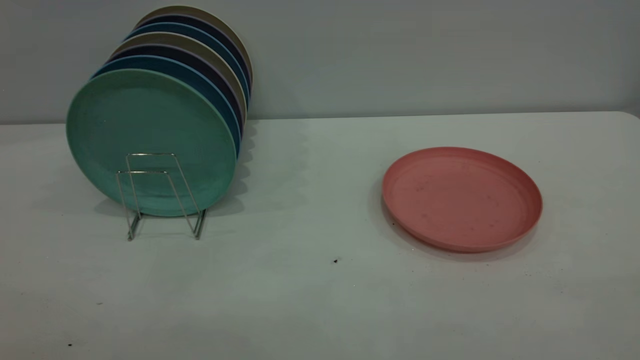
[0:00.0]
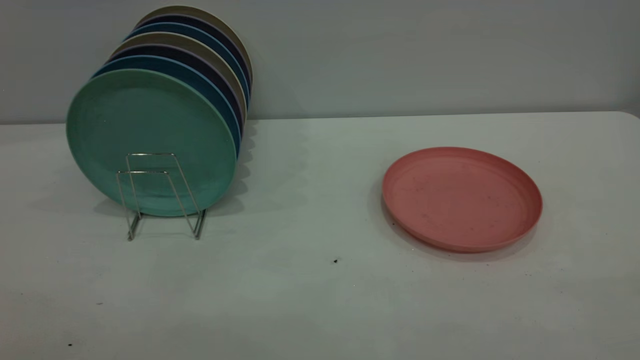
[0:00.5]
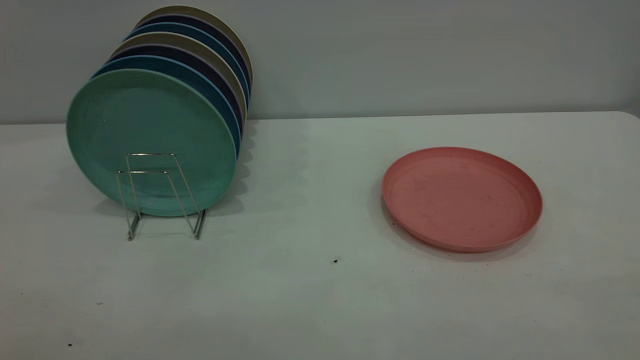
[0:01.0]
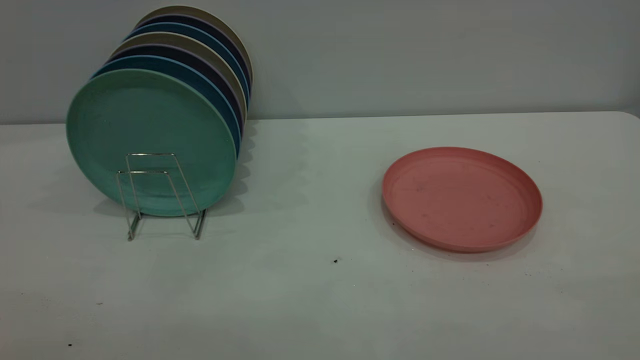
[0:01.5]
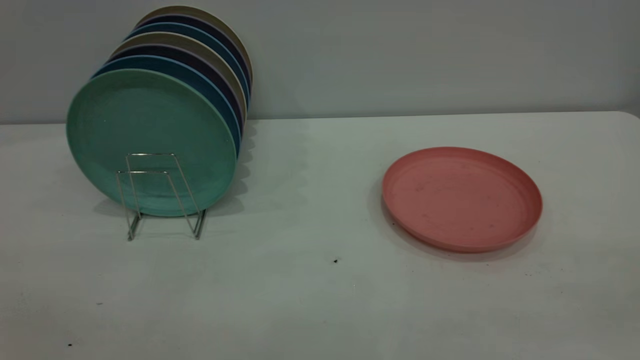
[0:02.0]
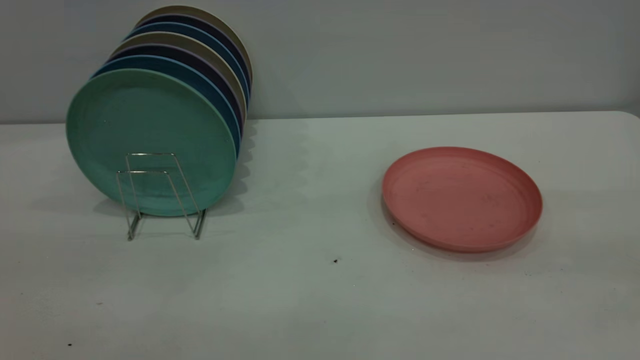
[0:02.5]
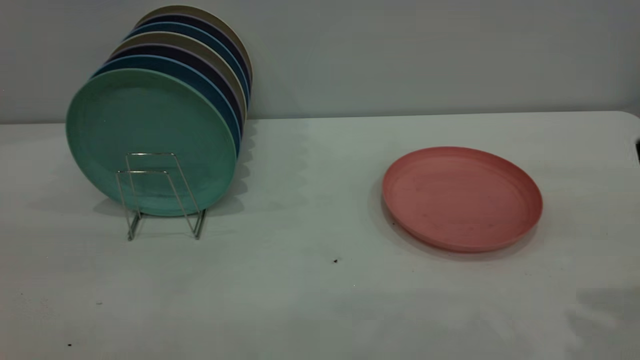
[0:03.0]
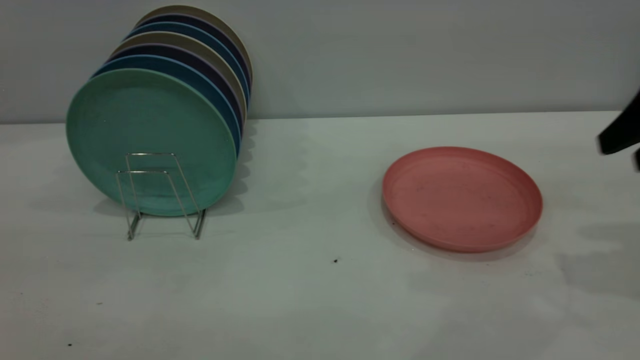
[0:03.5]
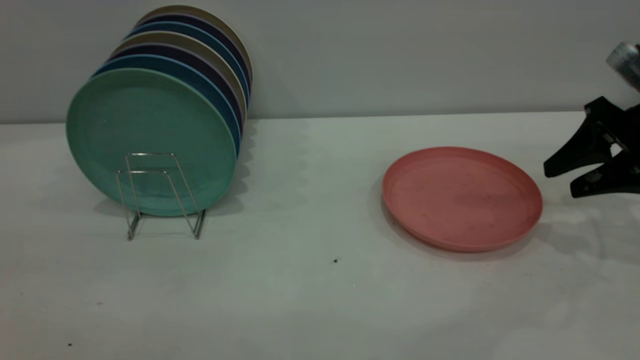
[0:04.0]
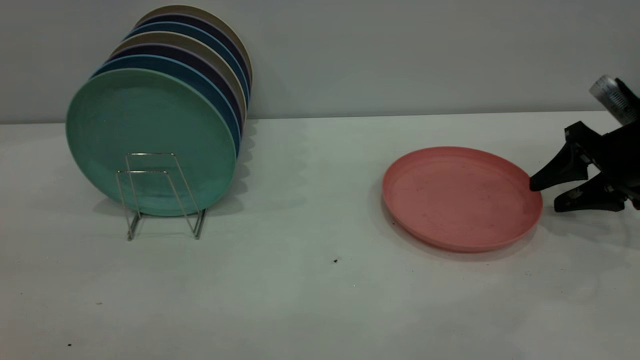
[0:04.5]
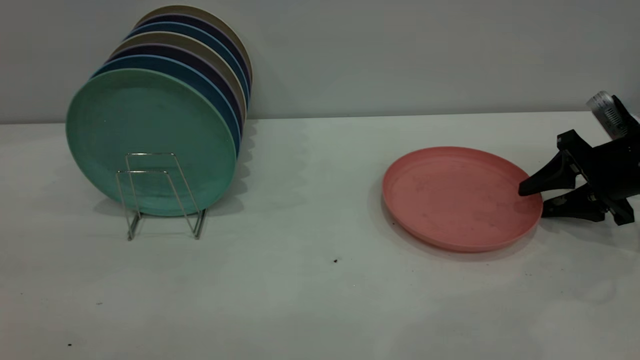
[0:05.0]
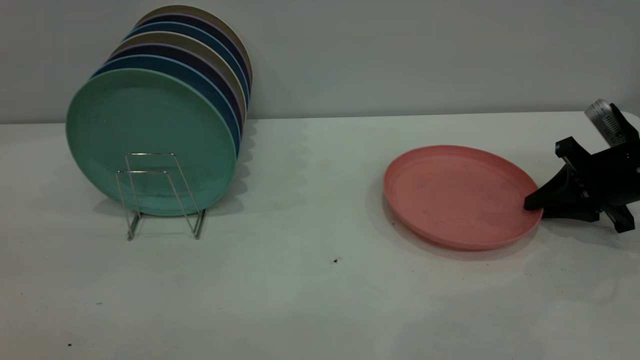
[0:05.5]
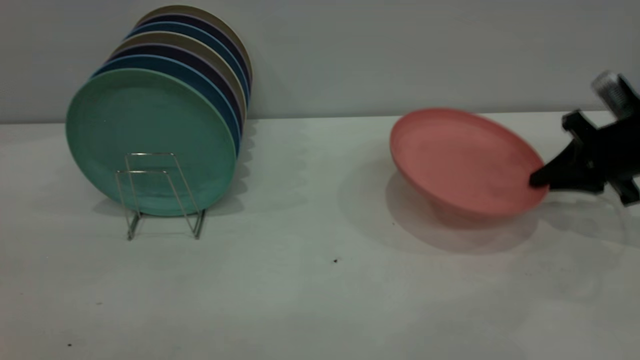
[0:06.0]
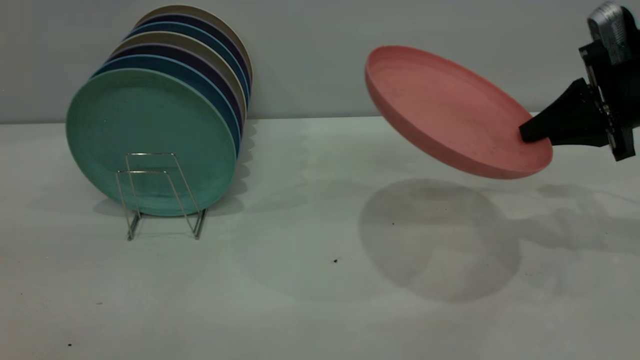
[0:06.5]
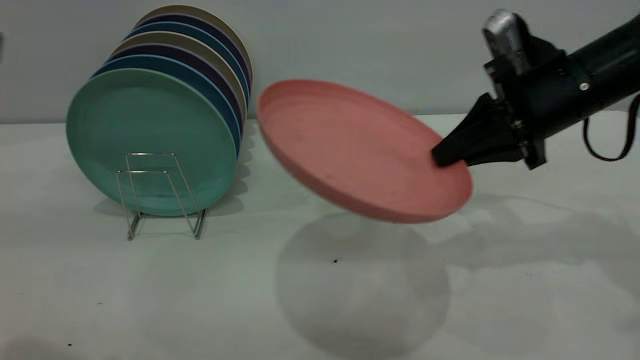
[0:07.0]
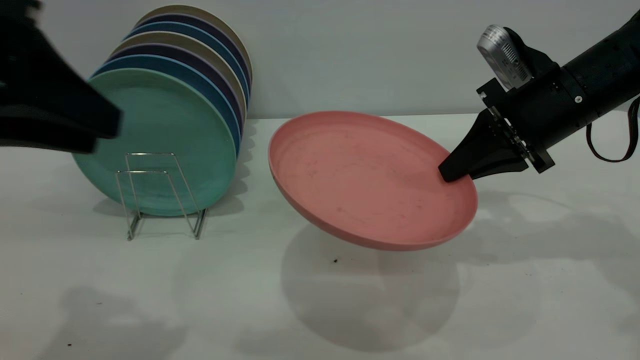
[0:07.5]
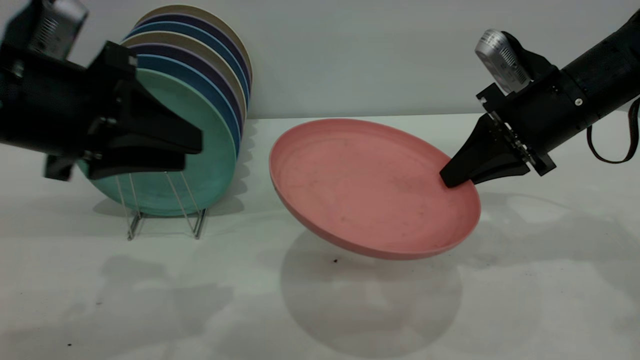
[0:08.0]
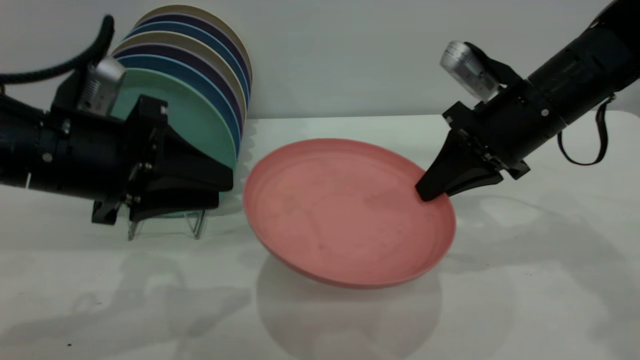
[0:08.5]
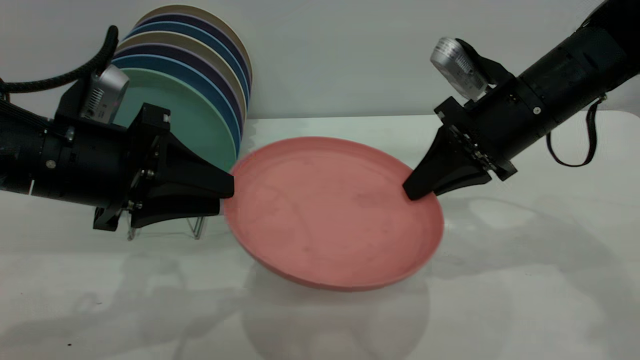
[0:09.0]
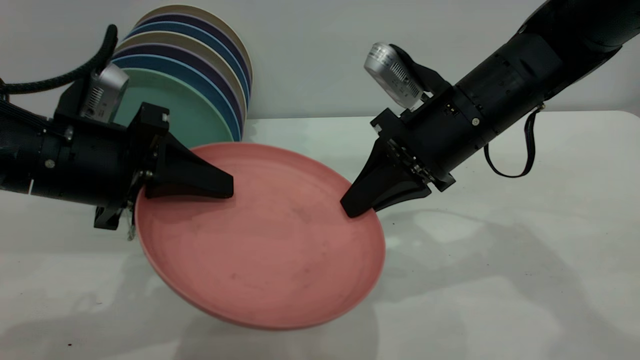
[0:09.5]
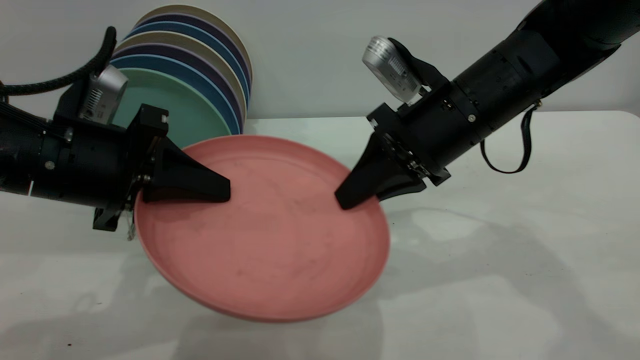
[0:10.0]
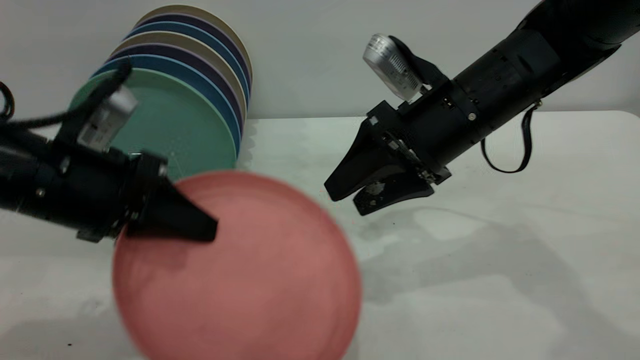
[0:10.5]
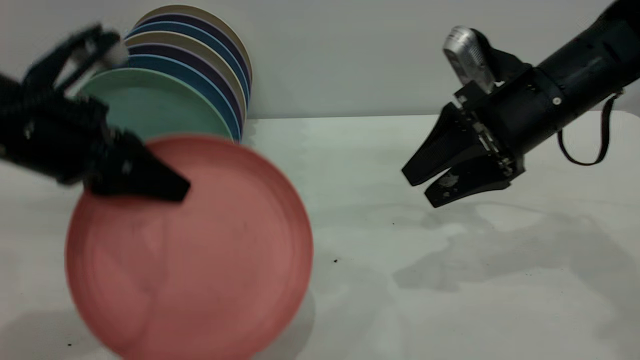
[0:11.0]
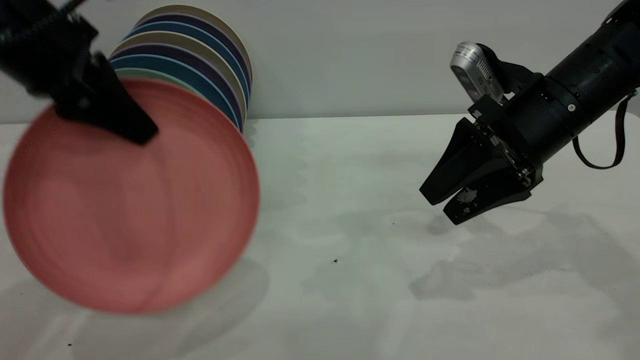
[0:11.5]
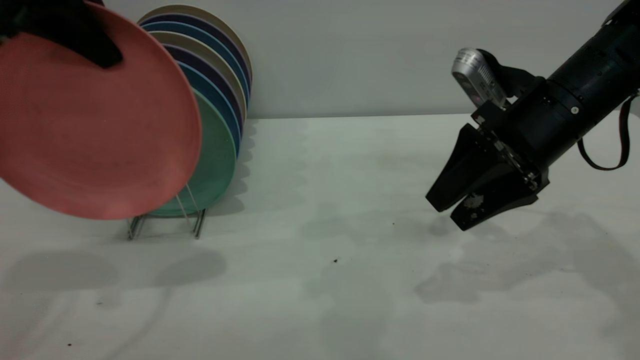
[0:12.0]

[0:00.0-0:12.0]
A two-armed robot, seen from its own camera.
Task of the whole recording: the right gripper grasp the pink plate, the right gripper pass the pink plate to the left gripper, and the left gripper place the pink plate on the plate rack.
Step, 0:00.0 to 0:06.0: Pick up the plate with the right gripper.
Step, 0:06.5 to 0:11.0: Pass the plate from the right gripper to the left gripper.
0:02.0 to 0:04.0: The right gripper travels forward and downward by some 40 cm.
0:04.0 to 0:06.0: The right gripper closes its fingers.
0:06.0 to 0:08.0: The right gripper travels to the left and upward by some 15 cm, while the left gripper travels downward and forward by roughly 25 cm.
0:08.0 to 0:10.0: The right gripper heads to the left, covering approximately 10 cm, while the left gripper goes about 5 cm downward, and closes its fingers.
0:10.0 to 0:12.0: The right gripper travels to the right by approximately 10 cm, and opens its fingers. Meanwhile the left gripper moves upward and forward, approximately 20 cm.

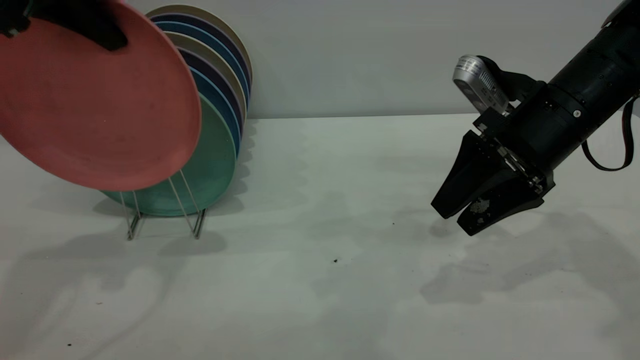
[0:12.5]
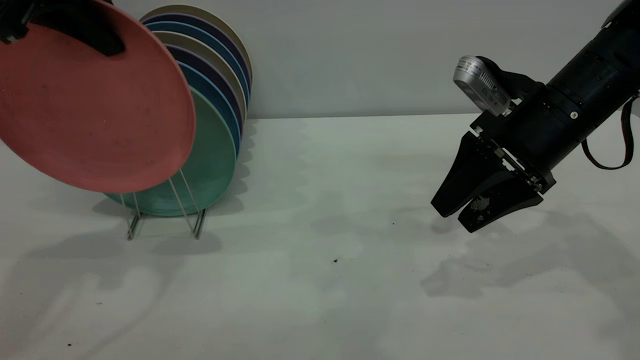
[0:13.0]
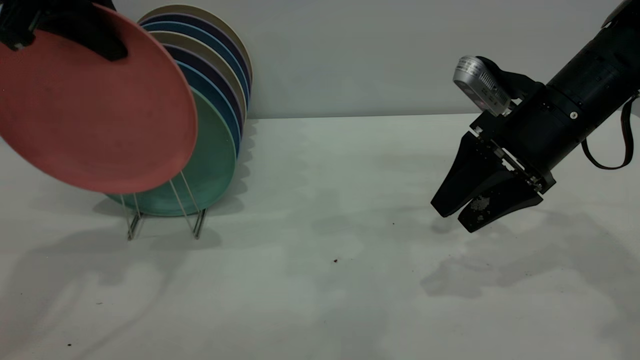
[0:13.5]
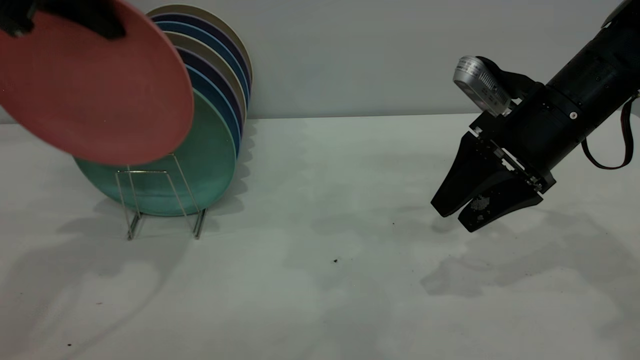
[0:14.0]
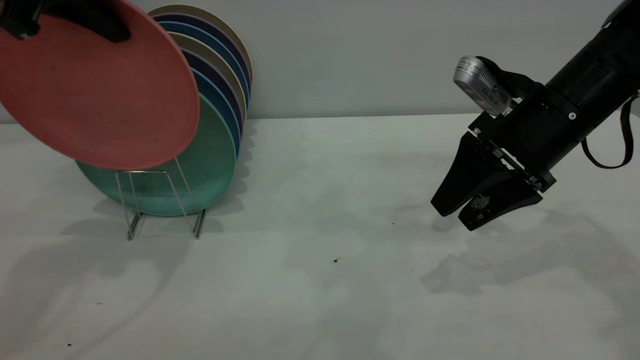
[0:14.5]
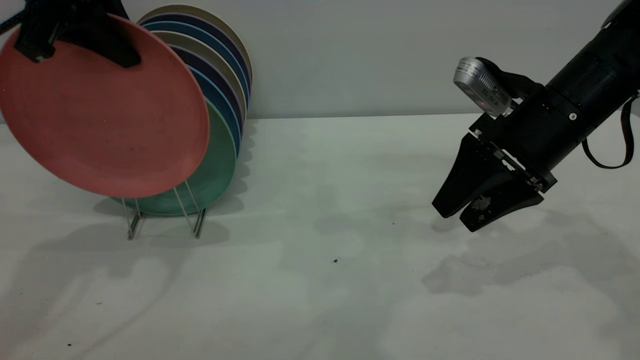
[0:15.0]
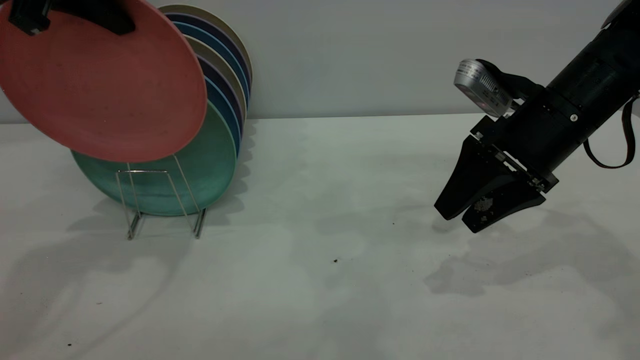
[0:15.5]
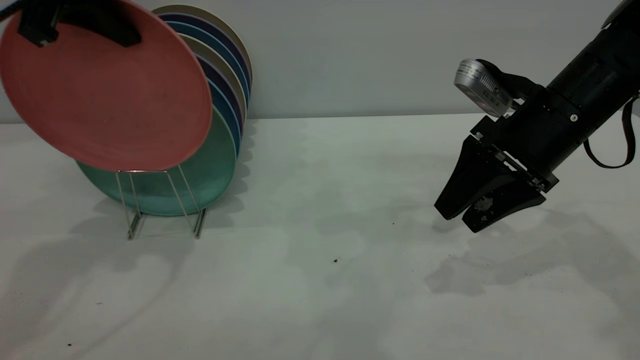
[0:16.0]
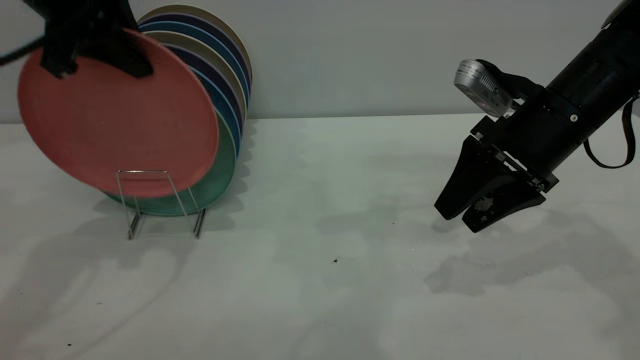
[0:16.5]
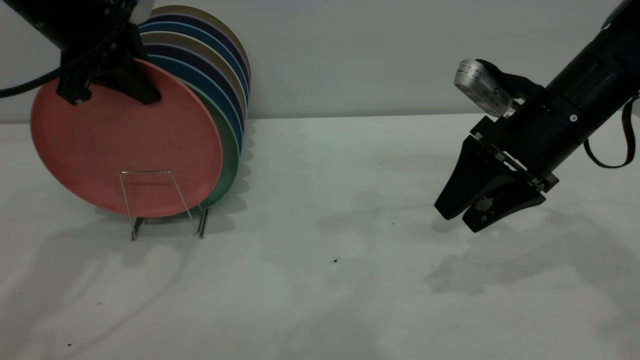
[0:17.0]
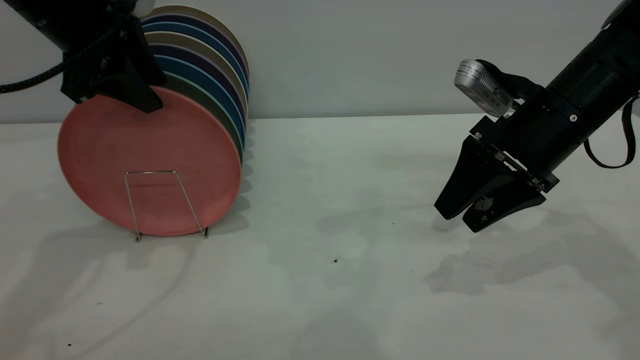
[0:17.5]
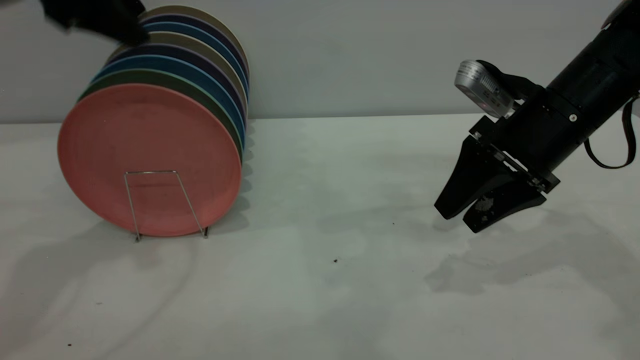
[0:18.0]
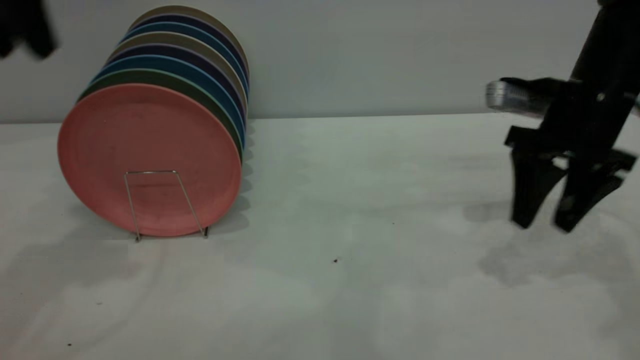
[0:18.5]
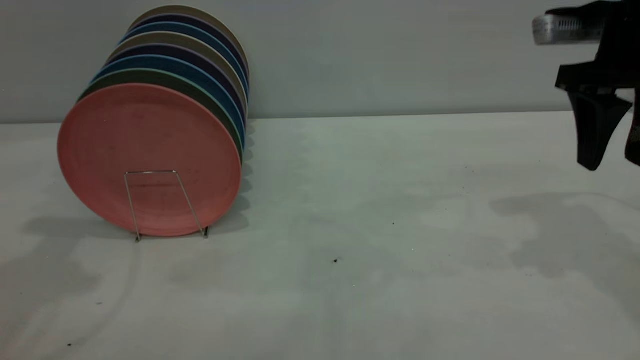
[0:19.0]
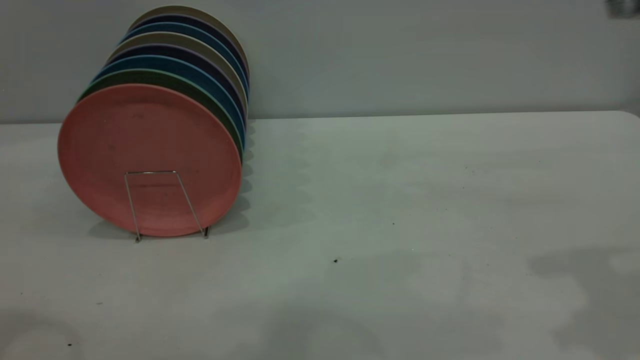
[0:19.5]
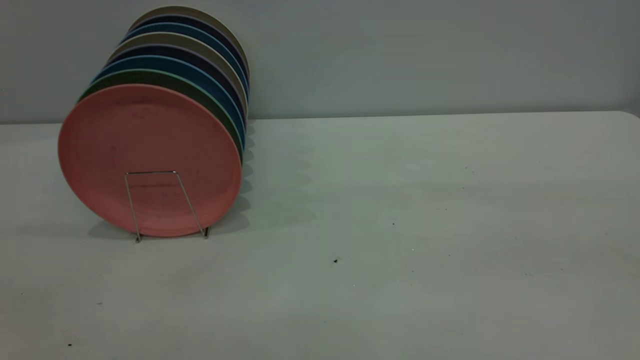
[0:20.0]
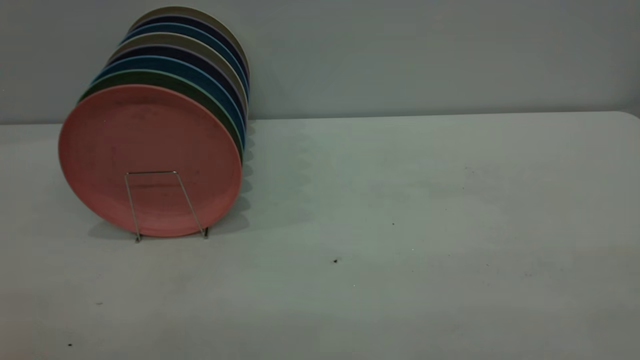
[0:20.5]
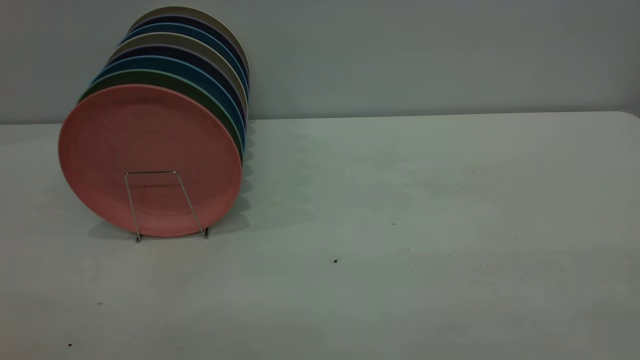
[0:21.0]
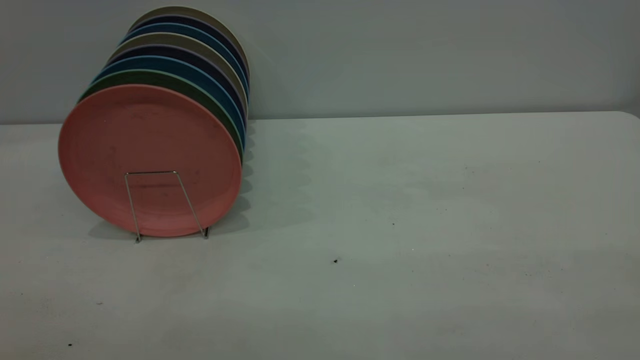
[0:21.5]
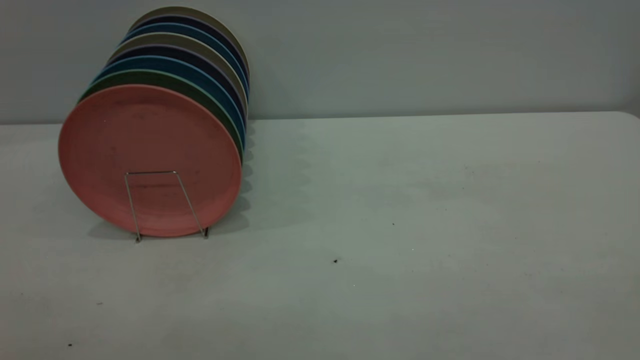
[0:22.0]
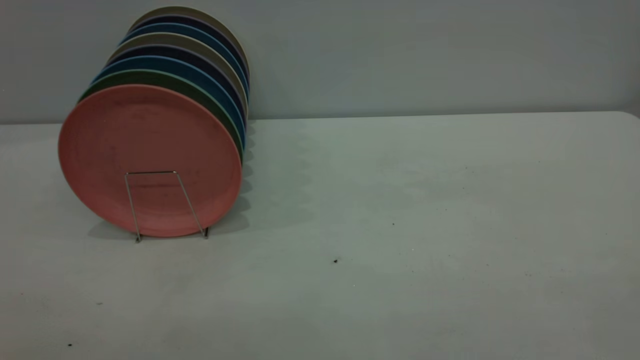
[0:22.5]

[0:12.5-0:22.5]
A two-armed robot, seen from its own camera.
Task of the whole recording: the right gripper grasp the pink plate, the right gripper pass the pink plate to the left gripper, and the left gripper place the pink plate on the plate rack.
Step, 0:12.5 to 0:18.0: Place the plate on the shelf.
0:12.5 to 0:14.5: The grippers stay close to where they were, moving slightly.
0:14.5 to 0:16.5: The left gripper changes place by about 5 cm.
0:16.5 to 0:18.5: The left gripper heads upward and backward, covering approximately 10 cm, and opens.
0:18.5 to 0:20.5: The right gripper goes roughly 40 cm backward and upward, while the left gripper heads backward, covering roughly 35 cm.
